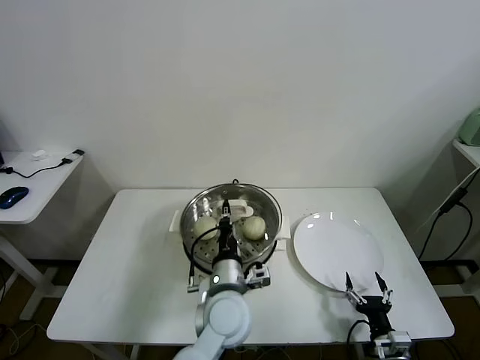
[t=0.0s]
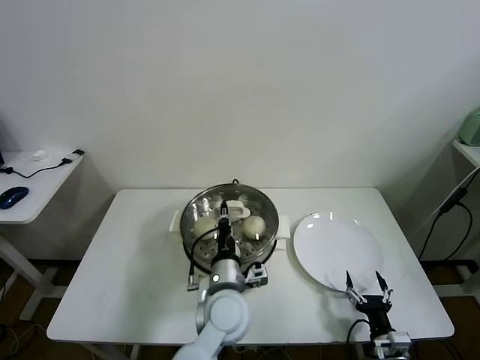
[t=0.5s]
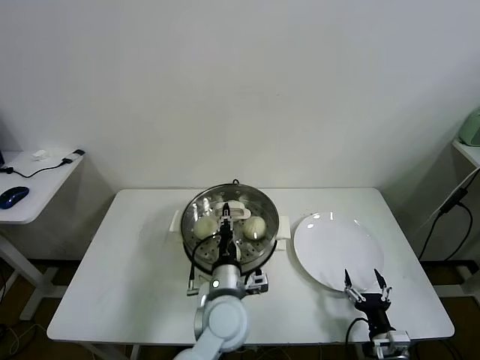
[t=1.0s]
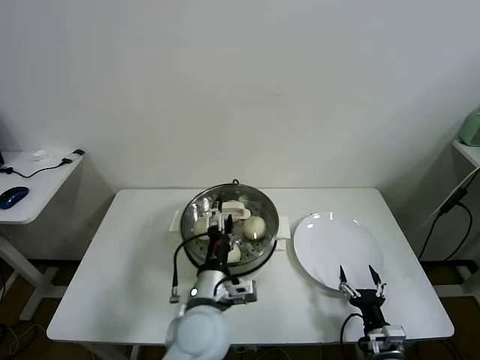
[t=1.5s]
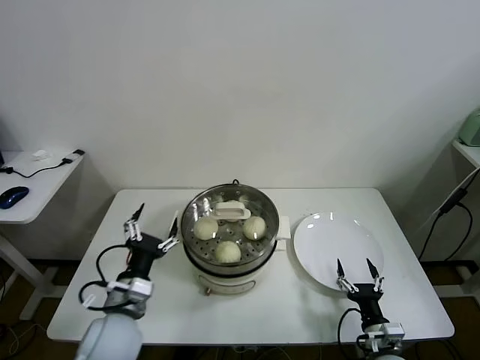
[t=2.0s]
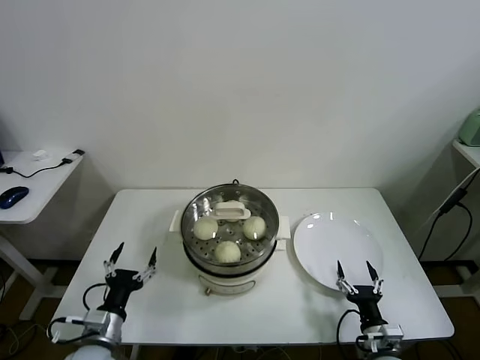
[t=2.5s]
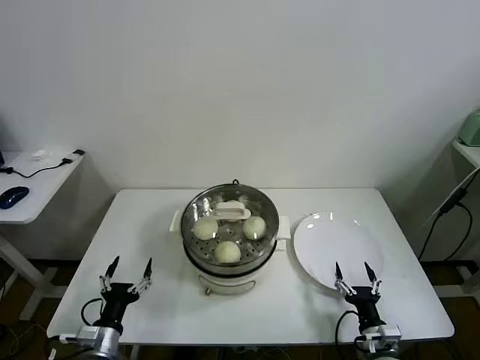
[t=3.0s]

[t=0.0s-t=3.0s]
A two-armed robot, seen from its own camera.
Task of the whole recording: take steamed baozi put them in steamer.
t=0.0s to t=1.5s: The left gripper opens.
t=1.5s to t=3.0s: The left gripper travels to the left and downward by some 30 cm.
